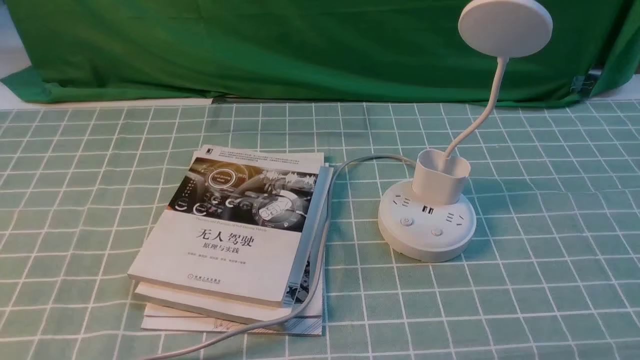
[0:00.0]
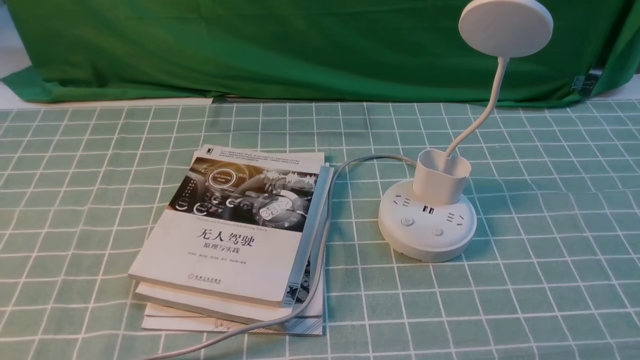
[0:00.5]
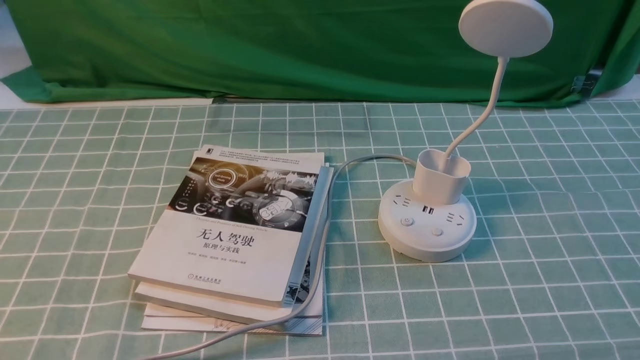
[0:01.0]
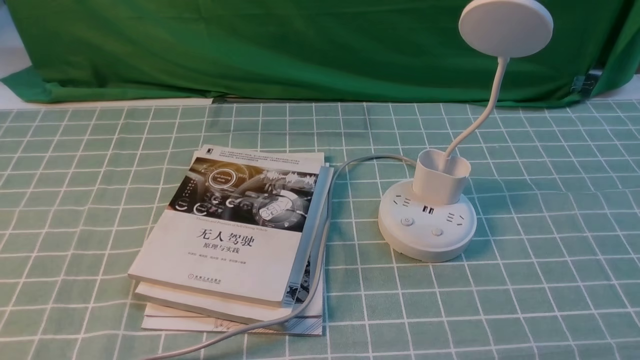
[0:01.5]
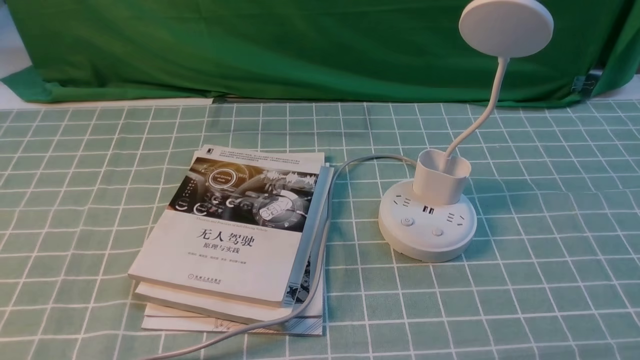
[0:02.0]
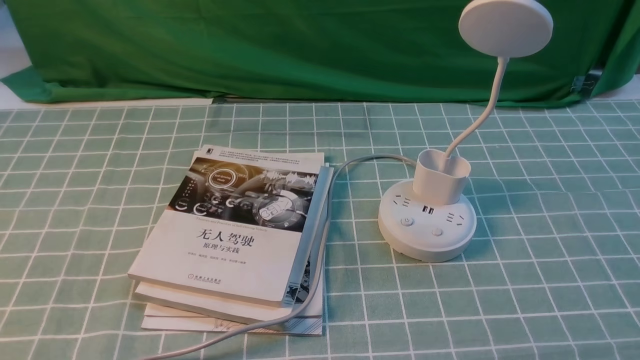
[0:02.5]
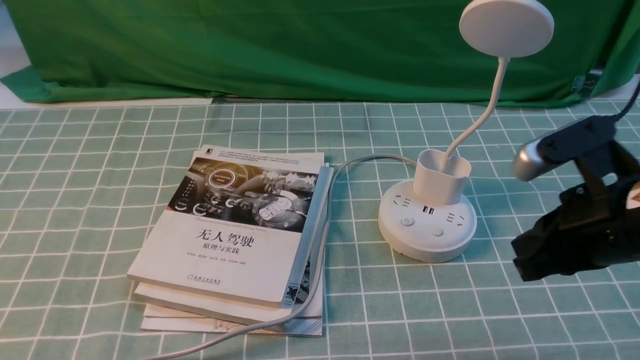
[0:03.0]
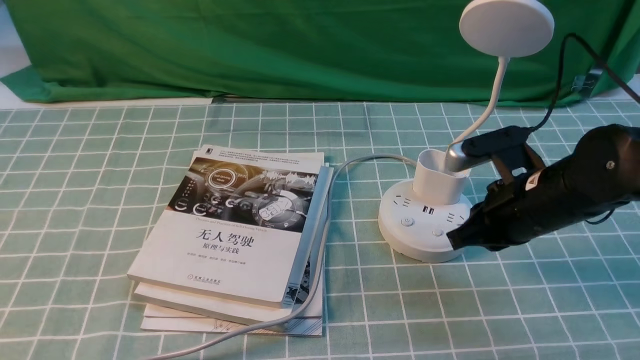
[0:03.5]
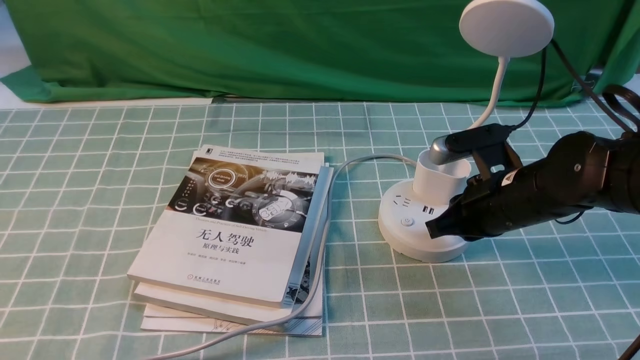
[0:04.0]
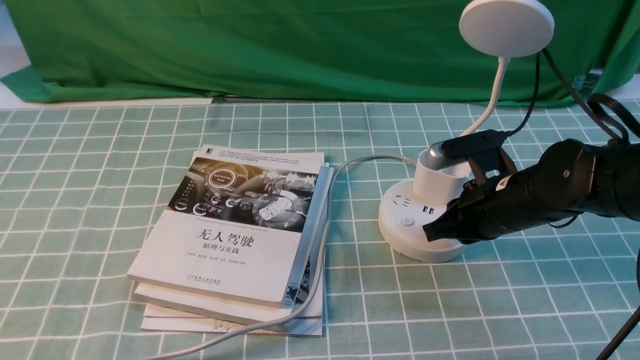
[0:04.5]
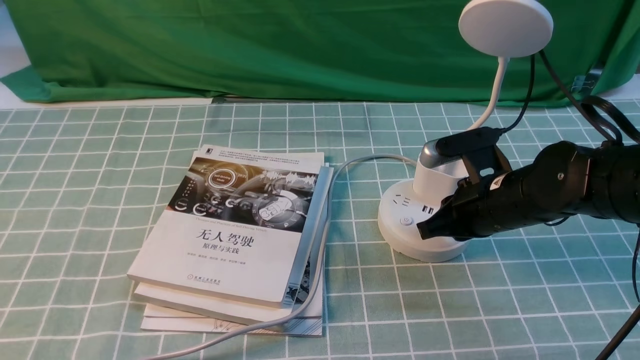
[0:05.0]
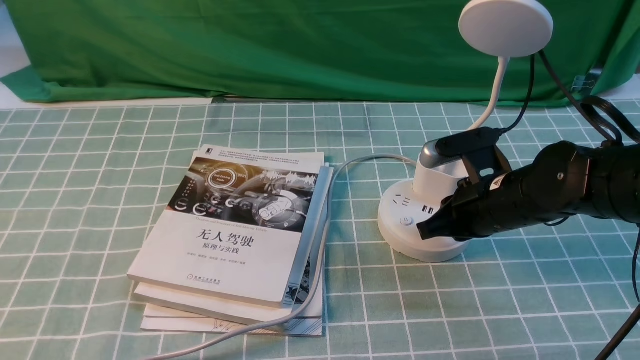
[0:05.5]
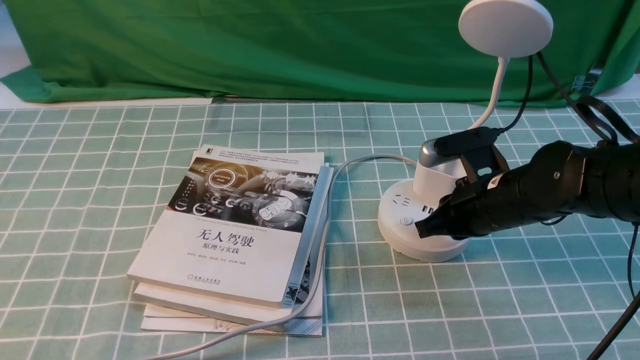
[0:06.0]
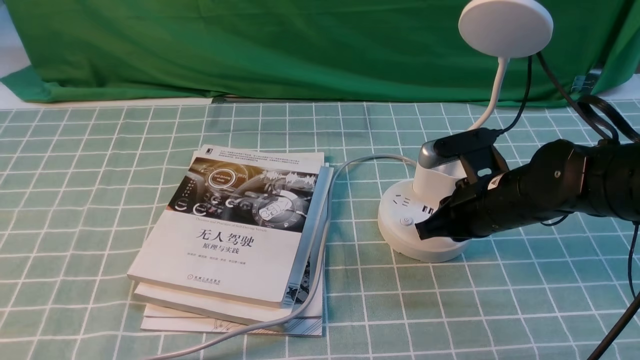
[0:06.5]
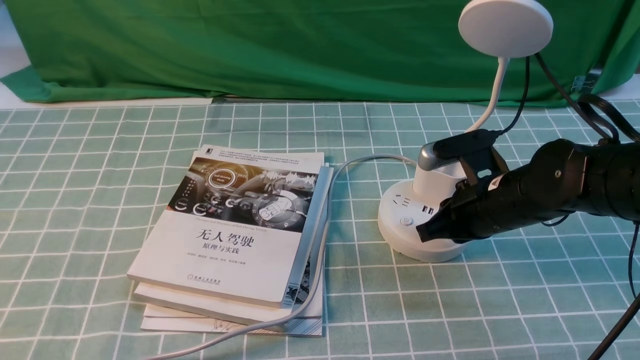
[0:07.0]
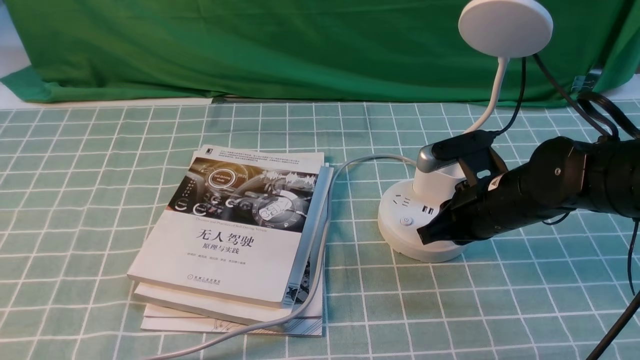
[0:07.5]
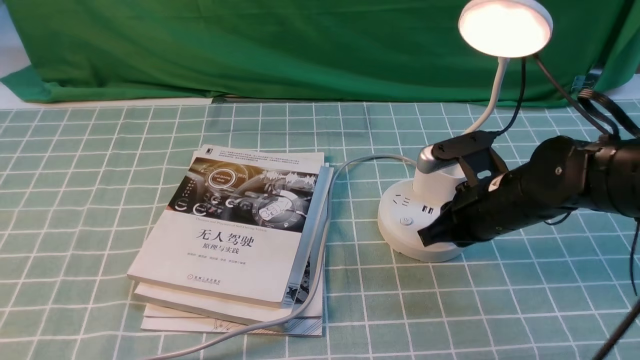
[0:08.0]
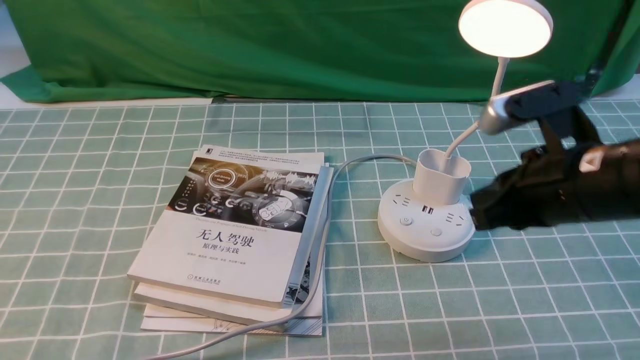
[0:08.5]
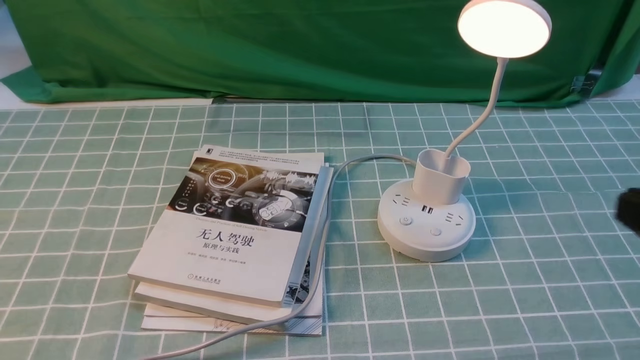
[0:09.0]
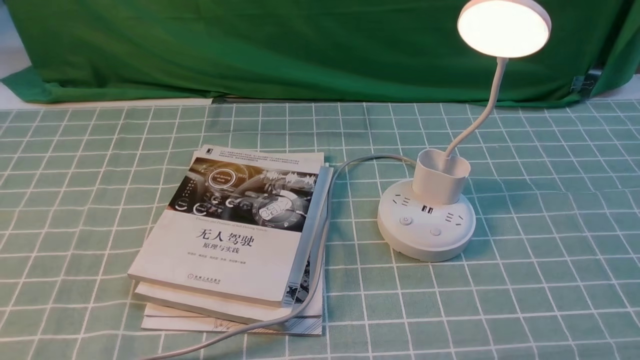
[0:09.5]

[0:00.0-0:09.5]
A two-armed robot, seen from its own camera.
Step, 0:00.0 to 0:08.0: use the right arm to press the button switch on the lamp holder.
0:02.0 to 0:04.0: The right gripper travels forward and to the left by about 30 cm, and closes.
0:04.0 to 0:05.5: Both grippers stay put.
0:05.5 to 0:07.5: The grippers stay close to where they were, moving slightly.
0:07.5 to 0:09.5: The right gripper travels backward and to the right by about 30 cm, and opens.

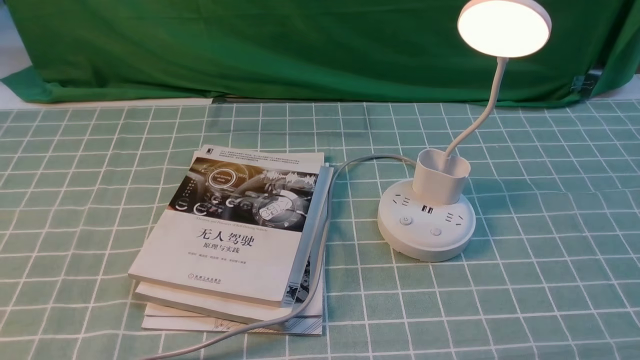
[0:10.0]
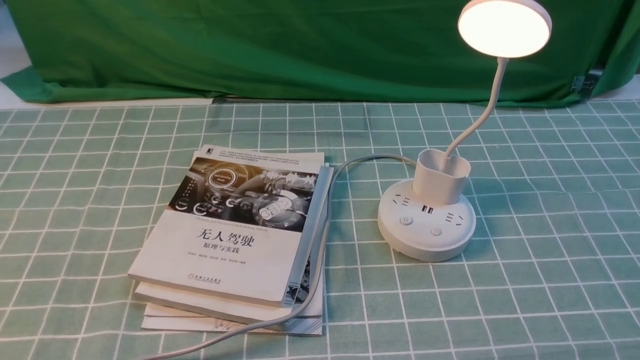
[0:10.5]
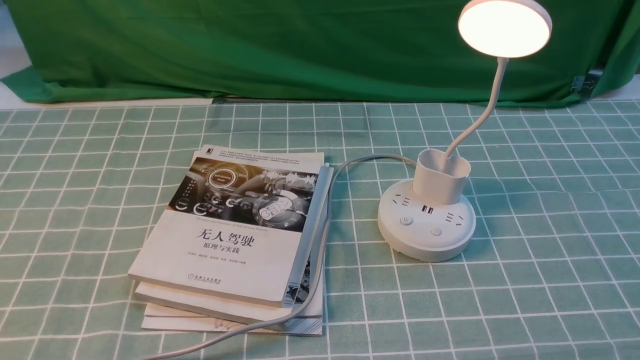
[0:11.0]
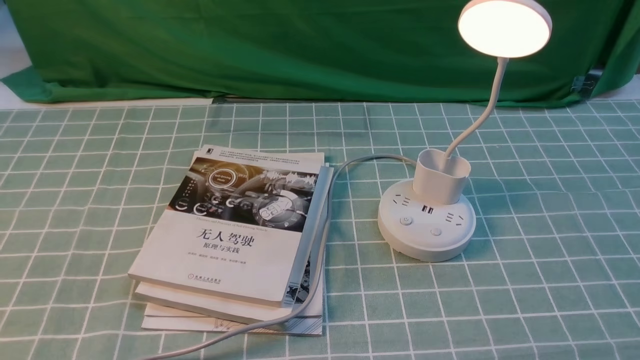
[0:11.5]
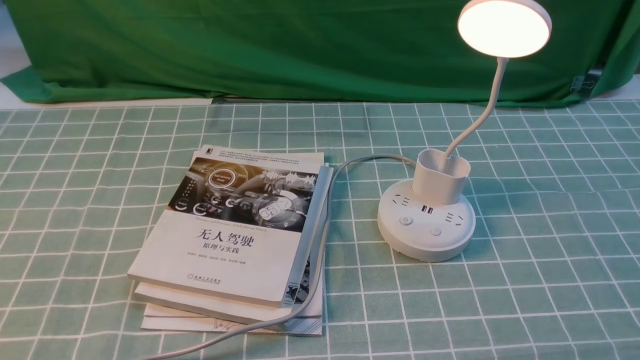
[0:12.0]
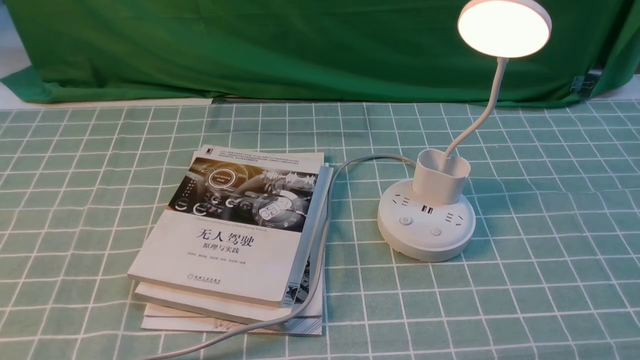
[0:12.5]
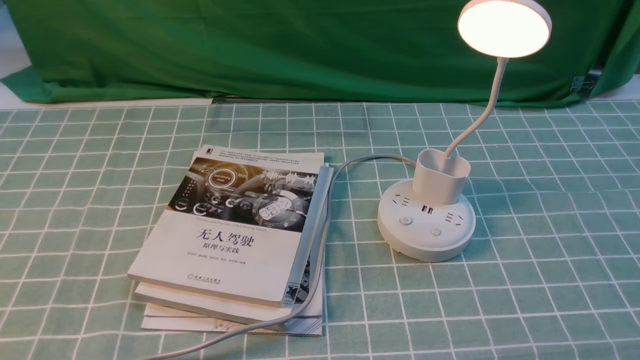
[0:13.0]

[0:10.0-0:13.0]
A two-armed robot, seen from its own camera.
0:10.0 to 0:13.0: Both grippers stay about where they are.

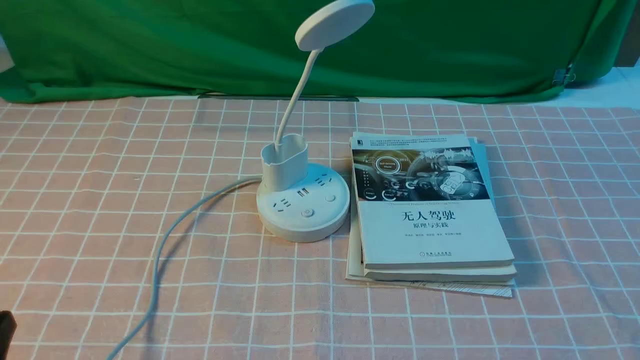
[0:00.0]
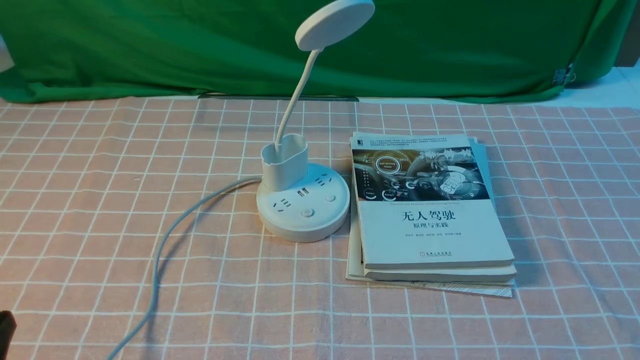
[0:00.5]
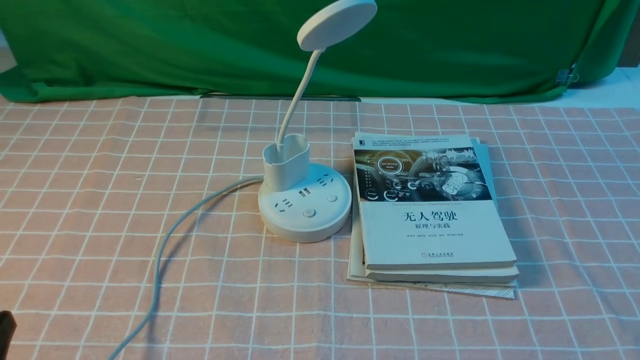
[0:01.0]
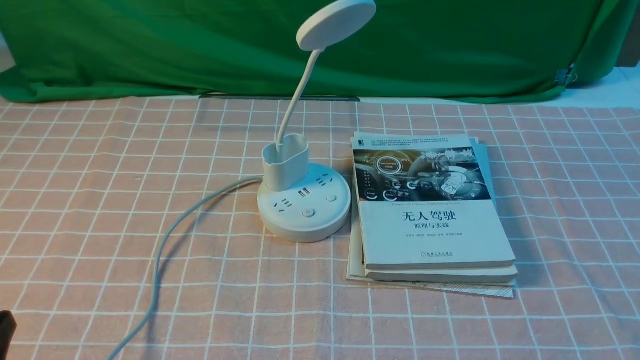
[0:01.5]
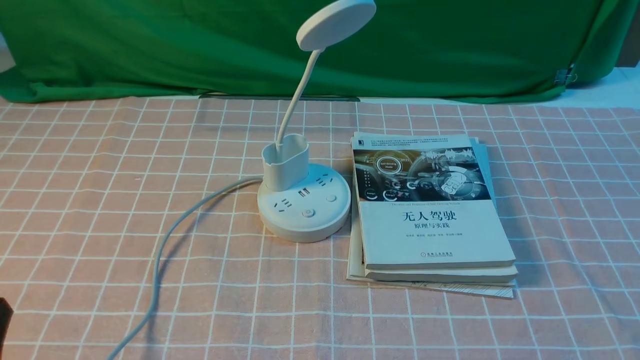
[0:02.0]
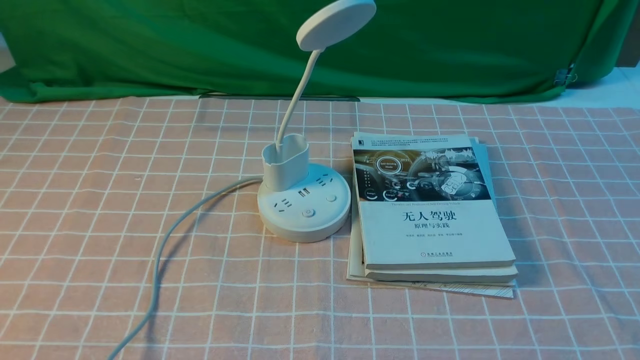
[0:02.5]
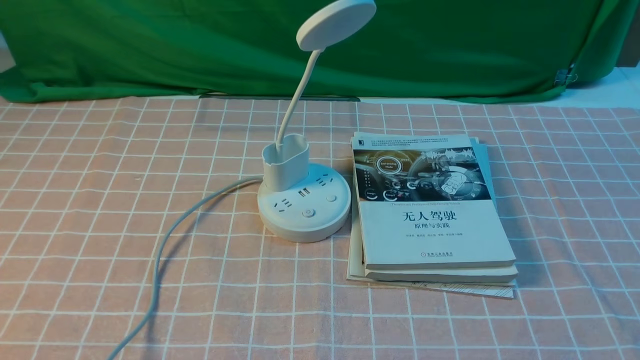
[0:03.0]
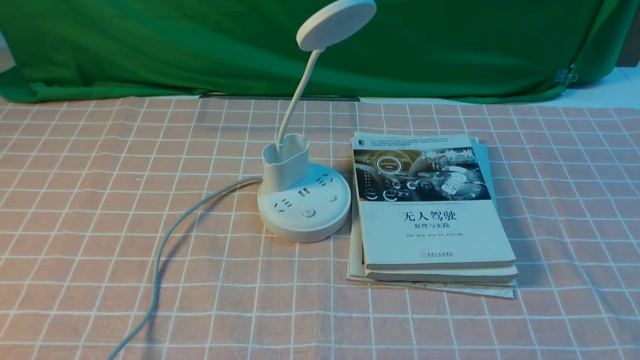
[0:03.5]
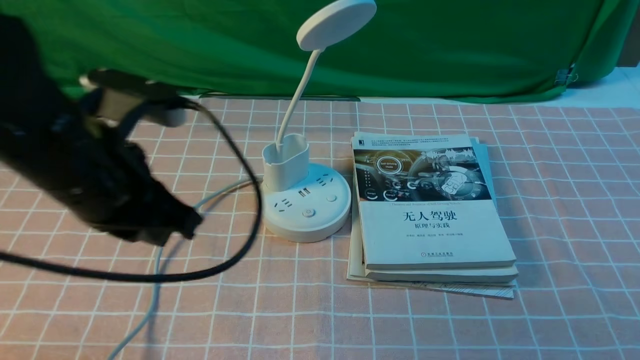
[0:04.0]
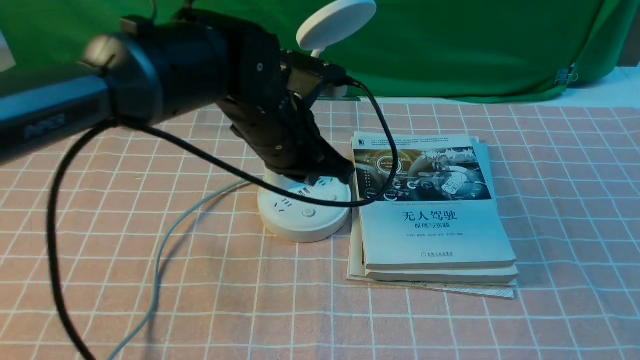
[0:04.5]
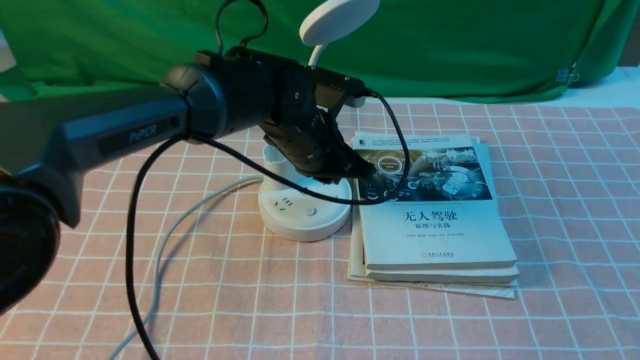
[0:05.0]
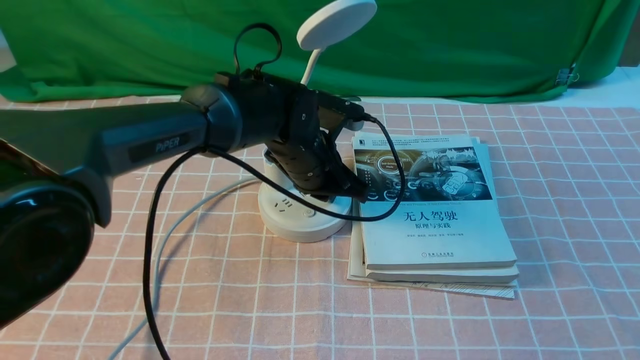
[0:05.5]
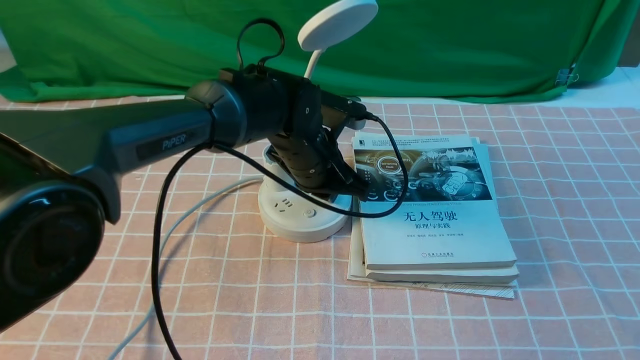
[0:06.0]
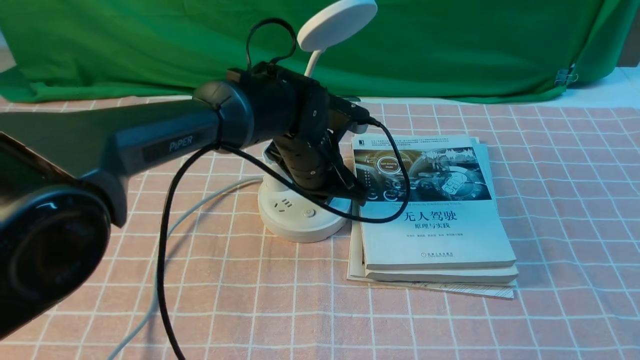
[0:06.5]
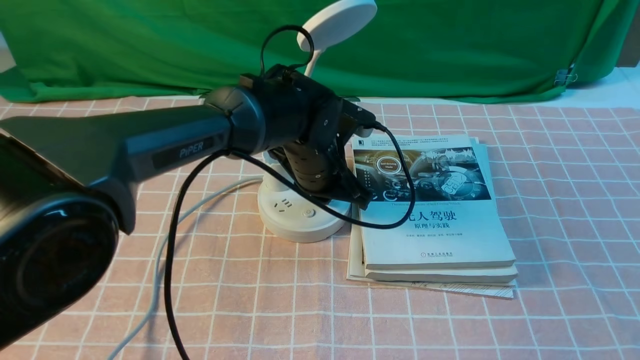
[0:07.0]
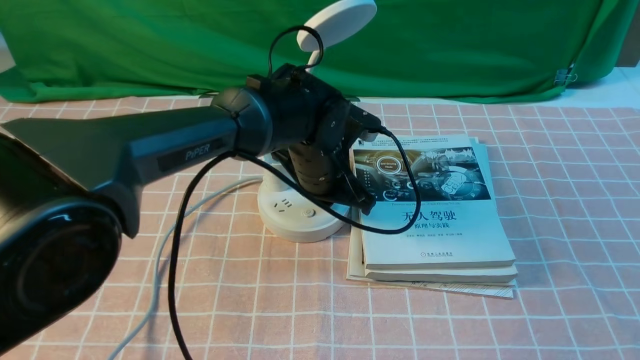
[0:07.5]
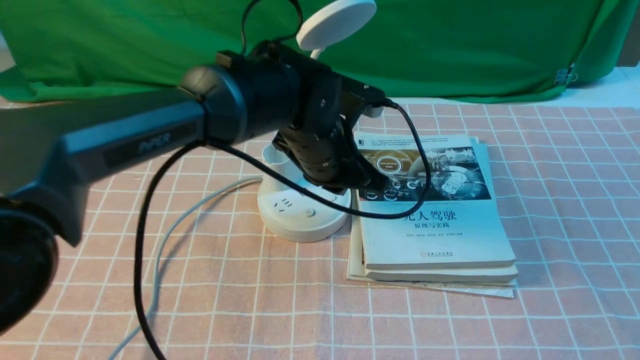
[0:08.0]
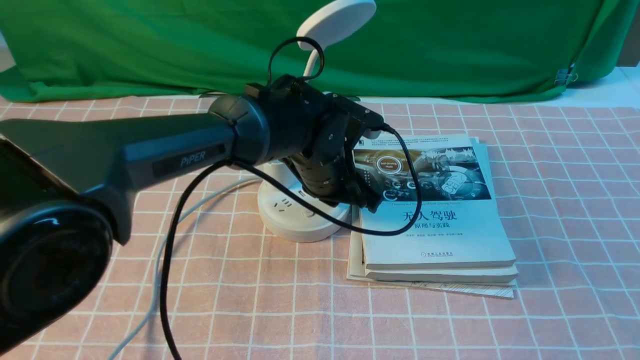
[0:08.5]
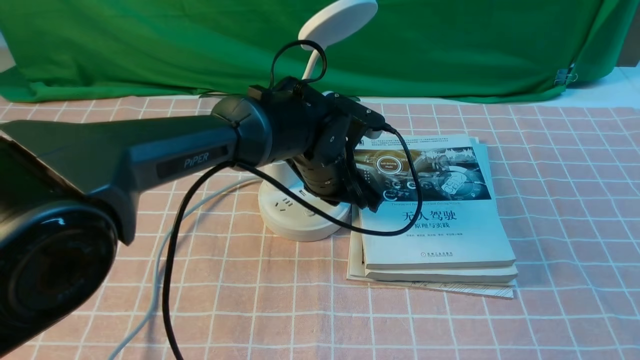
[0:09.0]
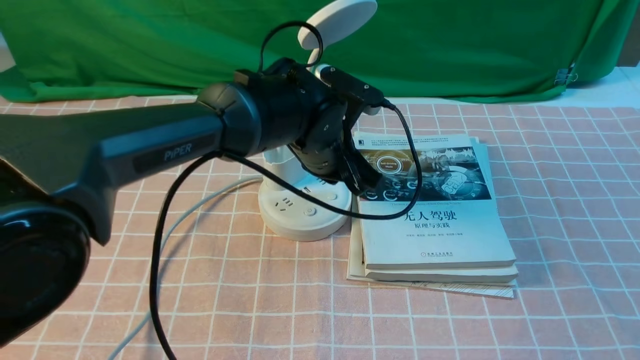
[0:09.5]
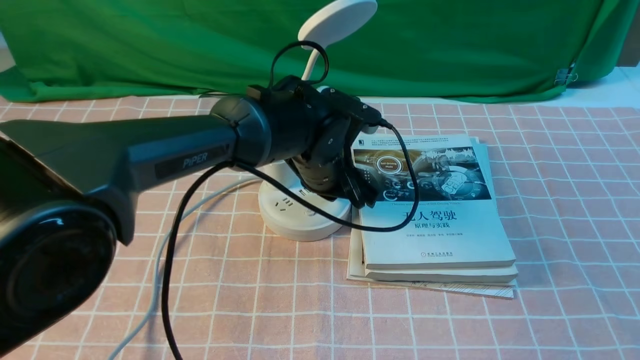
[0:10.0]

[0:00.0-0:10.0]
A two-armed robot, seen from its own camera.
0:02.0 to 0:04.0: The left gripper travels forward, upward and to the right by about 20 cm.
0:04.0 to 0:06.0: The left gripper goes roughly 30 cm to the right, forward and downward.
0:06.0 to 0:08.0: The left gripper moves approximately 5 cm.
0:08.0 to 0:10.0: The grippers move only a little.
